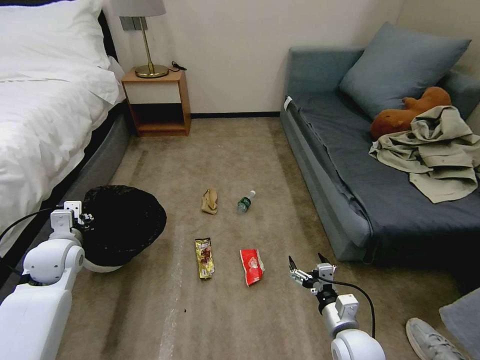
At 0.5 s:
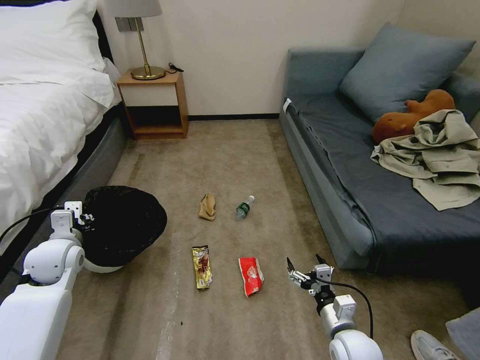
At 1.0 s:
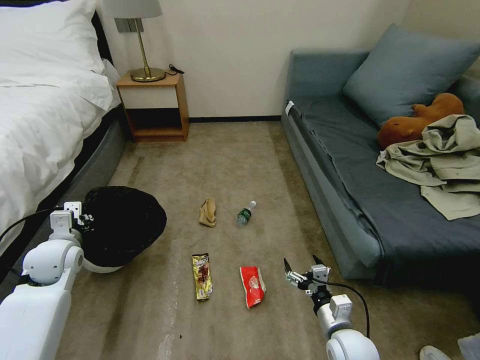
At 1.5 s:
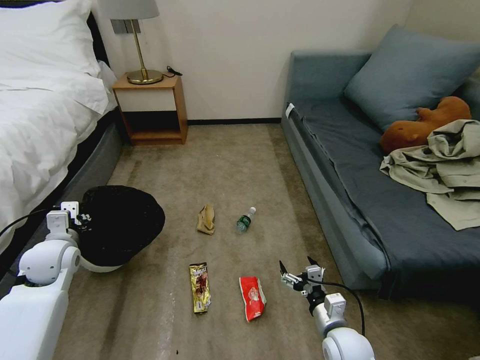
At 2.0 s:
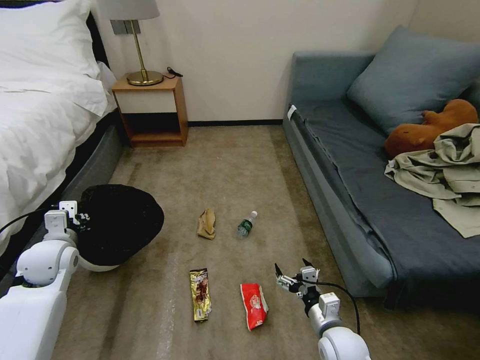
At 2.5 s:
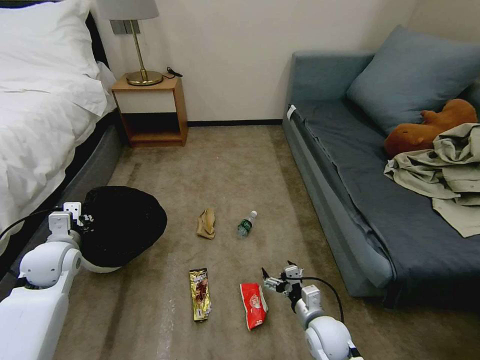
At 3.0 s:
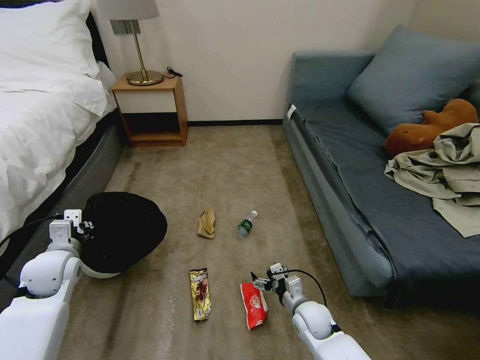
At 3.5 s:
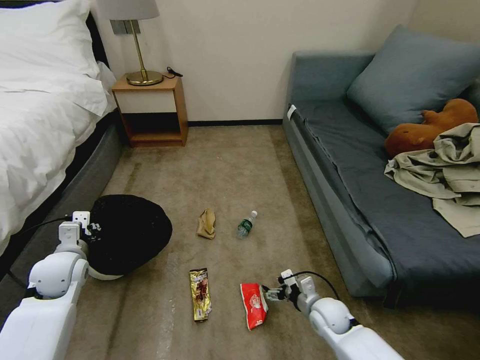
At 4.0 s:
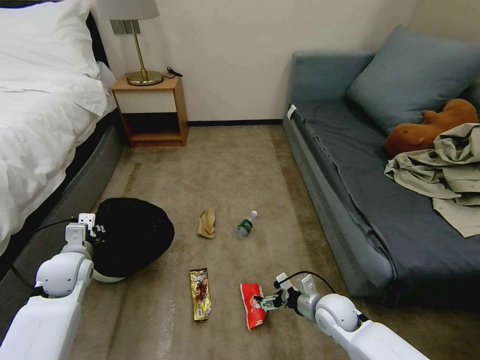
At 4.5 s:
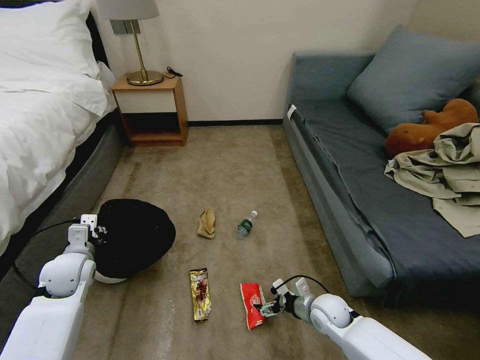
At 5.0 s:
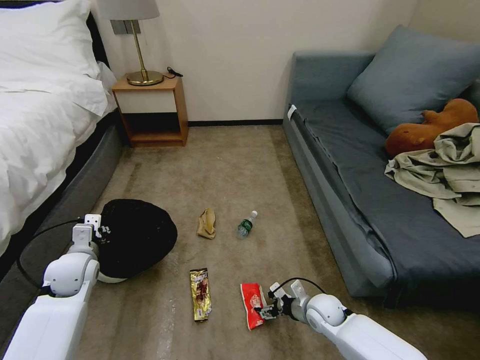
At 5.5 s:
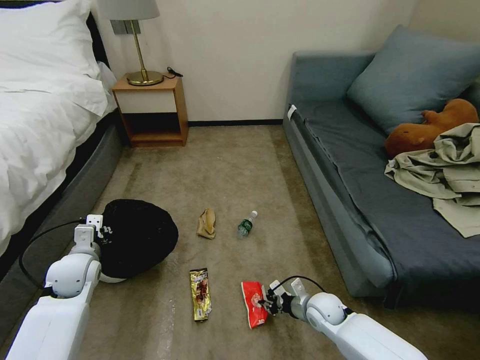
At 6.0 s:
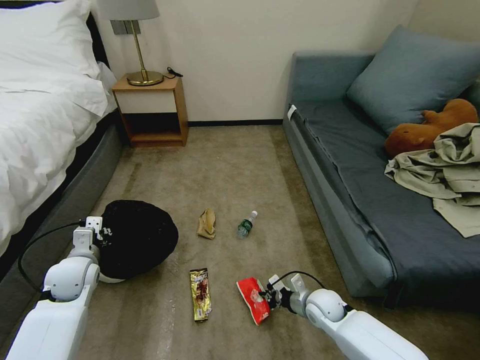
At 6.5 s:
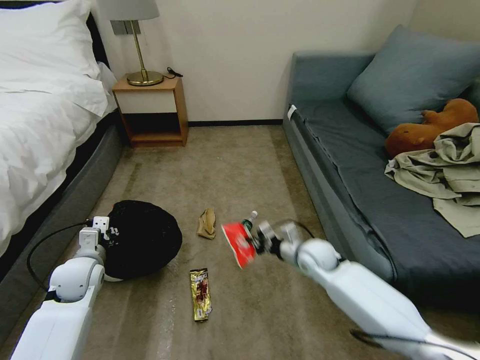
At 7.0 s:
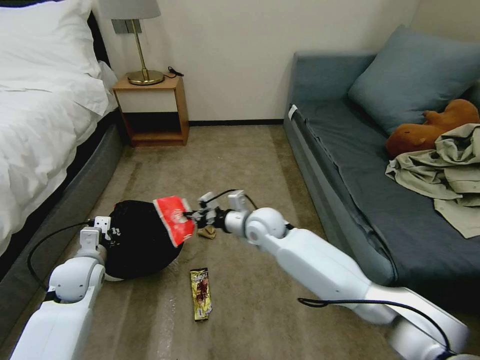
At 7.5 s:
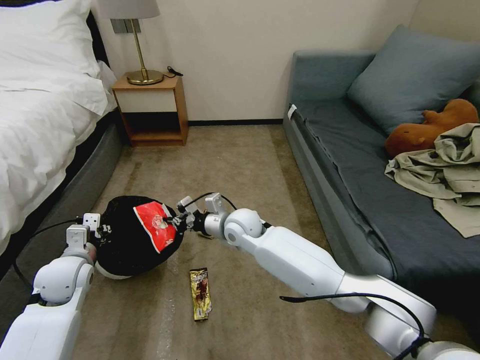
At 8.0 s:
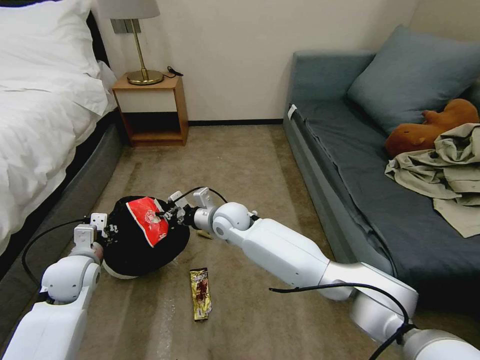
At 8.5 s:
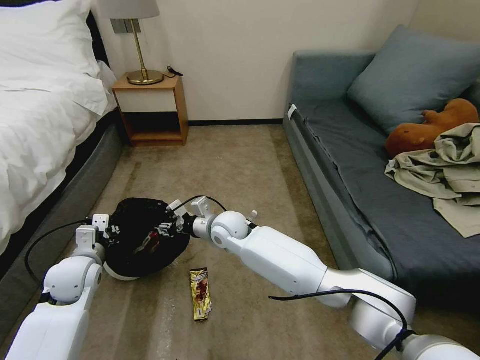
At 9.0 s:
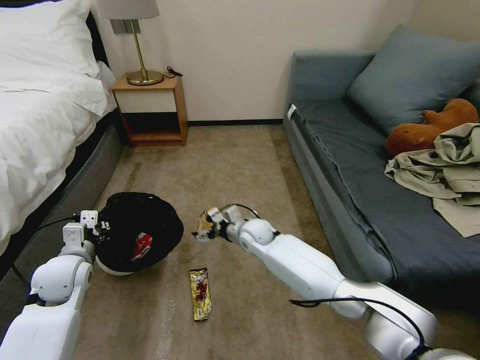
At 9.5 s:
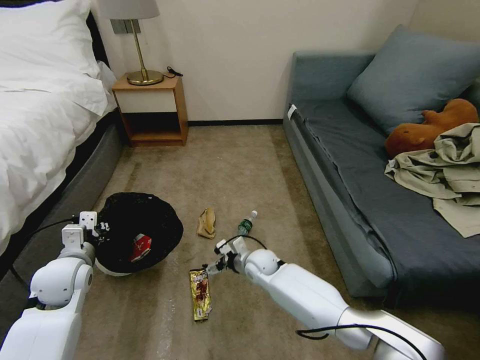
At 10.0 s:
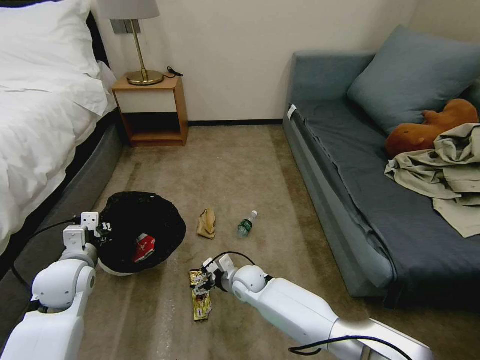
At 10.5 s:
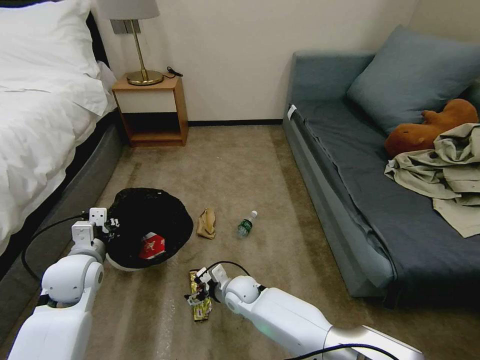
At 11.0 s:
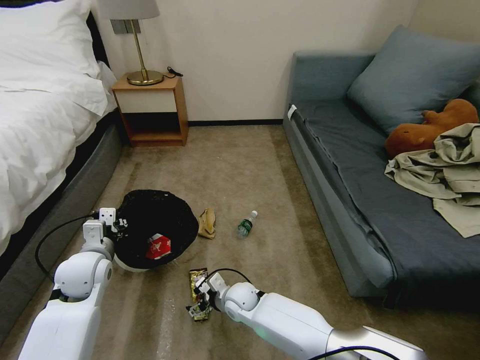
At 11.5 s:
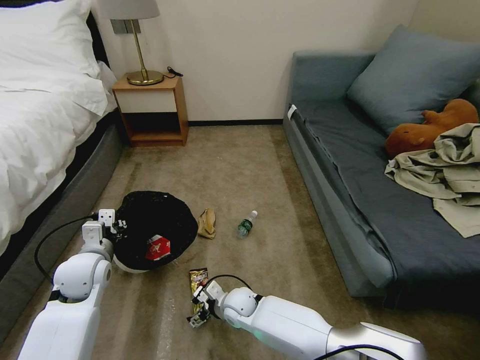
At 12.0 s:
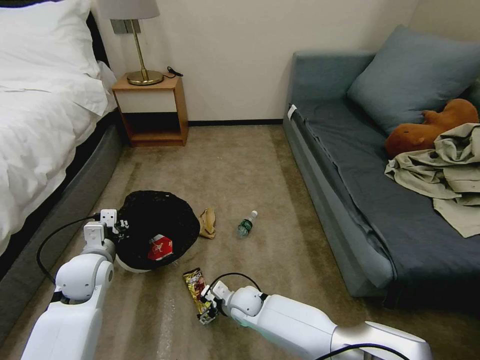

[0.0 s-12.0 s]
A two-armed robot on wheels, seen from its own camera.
Task of the whole recording: Pick up the trash bin, then pick up the garbage on the floor and place it into the trash bin.
2.0 to 4.0 s: The right gripper heads forward, covering some 10 cm.
4.0 to 6.0 s: The right gripper closes.
6.0 to 8.0 s: The right gripper heads to the left, upward and forward, covering approximately 35 cm.
8.0 to 10.0 s: The right gripper heads downward and backward, covering approximately 20 cm, and opens.
10.0 to 12.0 s: The right gripper moves some 5 cm.

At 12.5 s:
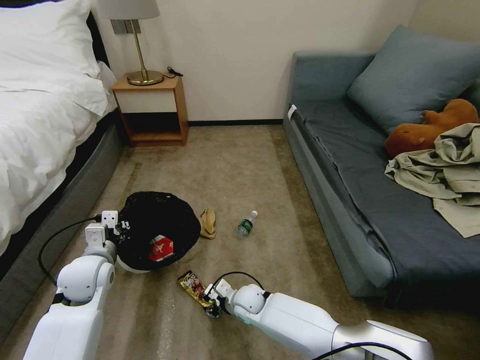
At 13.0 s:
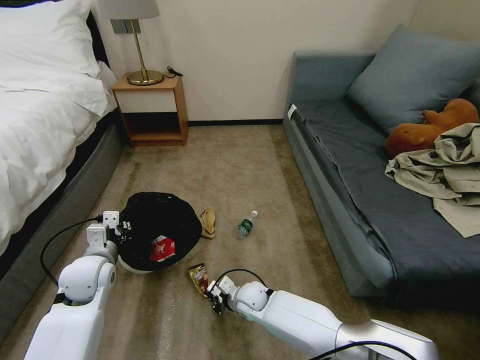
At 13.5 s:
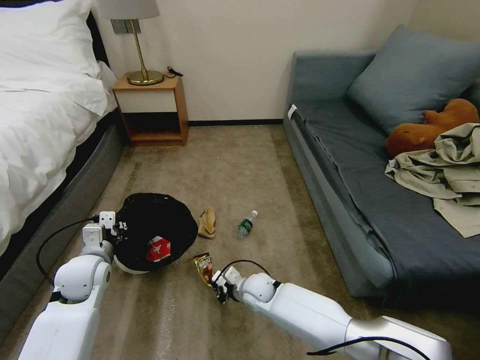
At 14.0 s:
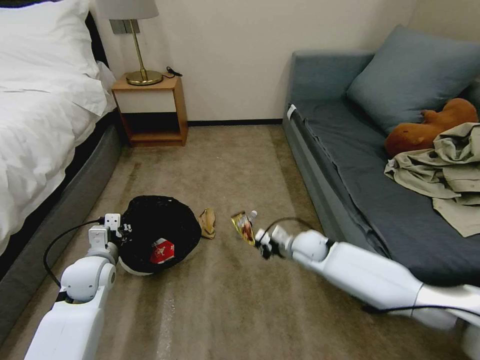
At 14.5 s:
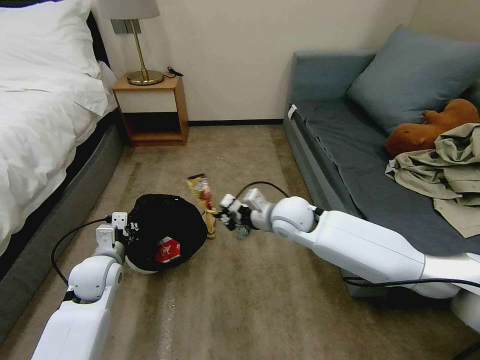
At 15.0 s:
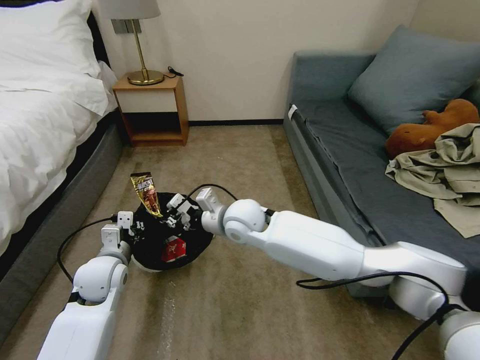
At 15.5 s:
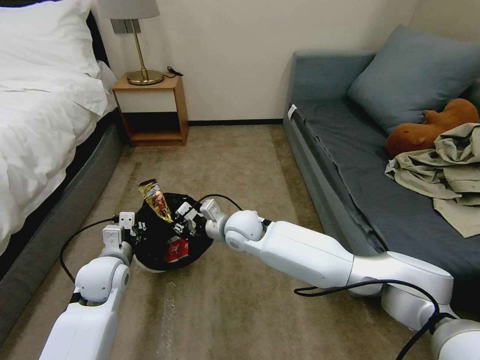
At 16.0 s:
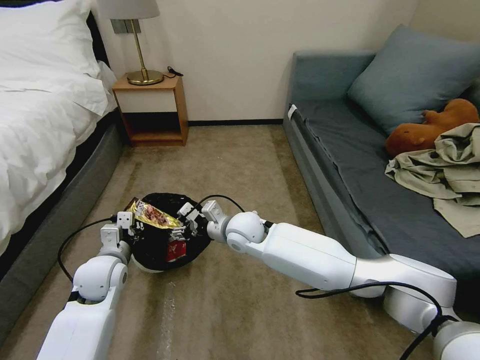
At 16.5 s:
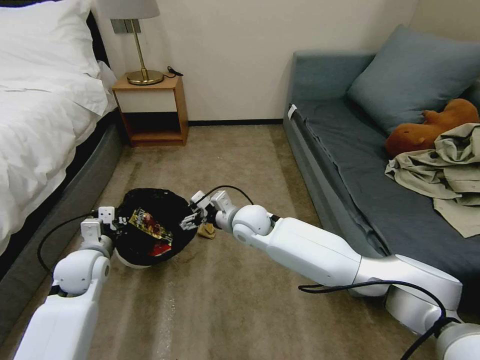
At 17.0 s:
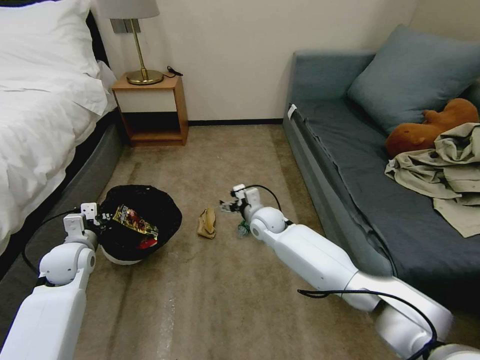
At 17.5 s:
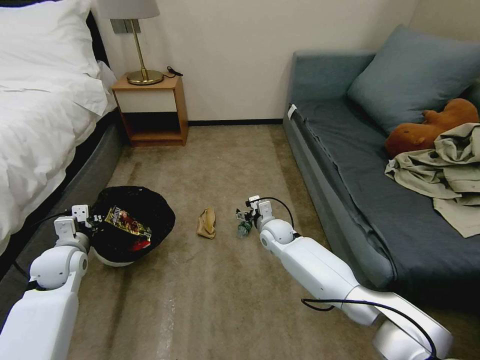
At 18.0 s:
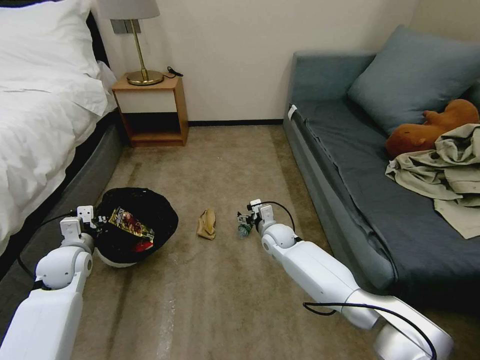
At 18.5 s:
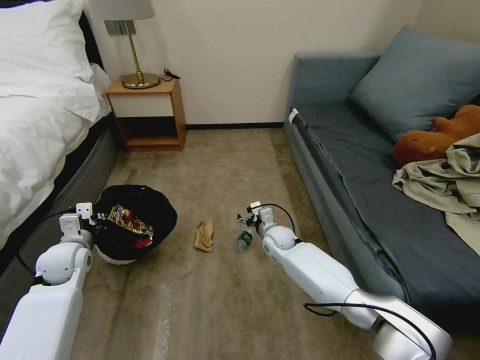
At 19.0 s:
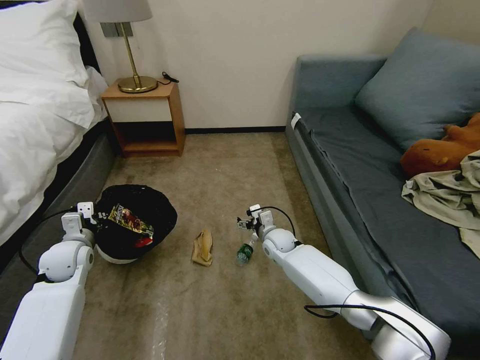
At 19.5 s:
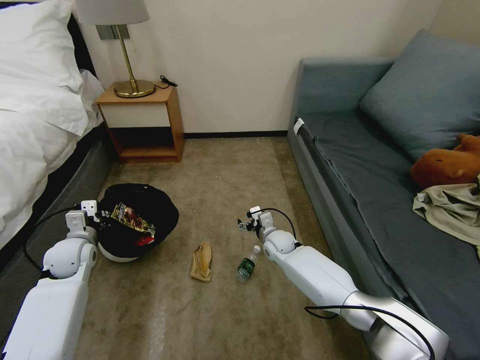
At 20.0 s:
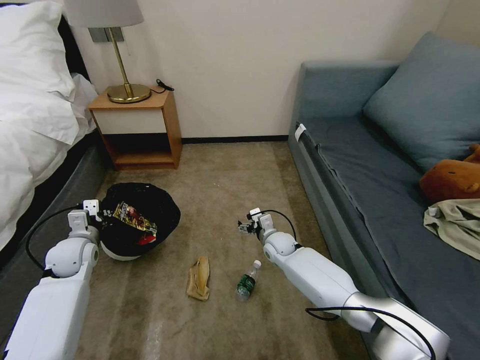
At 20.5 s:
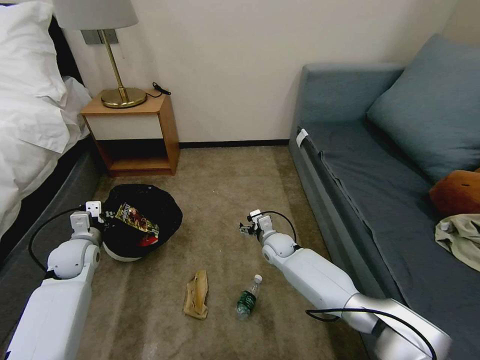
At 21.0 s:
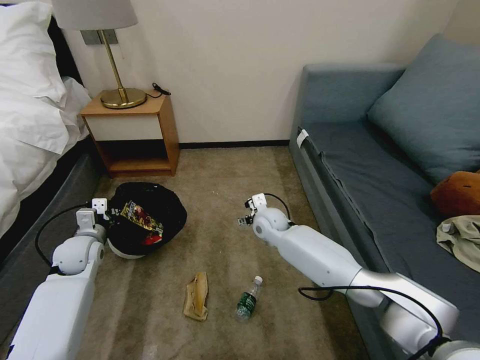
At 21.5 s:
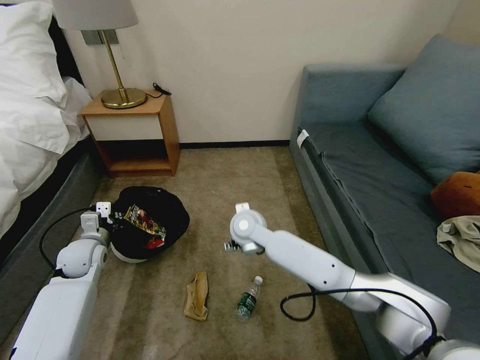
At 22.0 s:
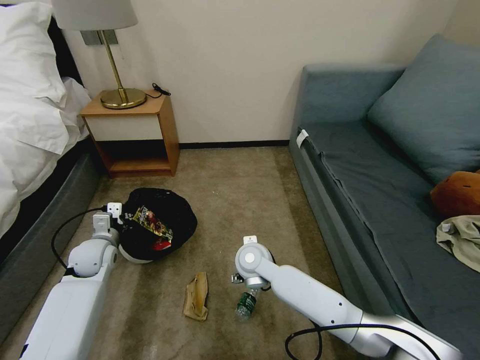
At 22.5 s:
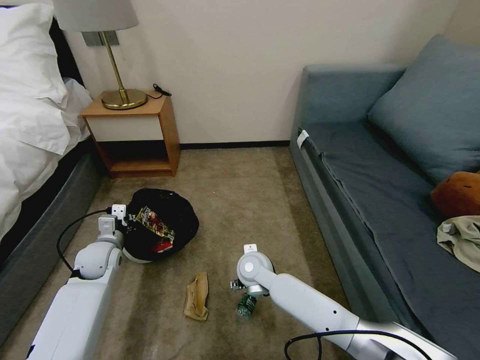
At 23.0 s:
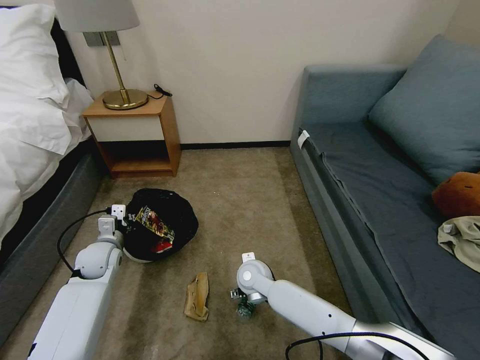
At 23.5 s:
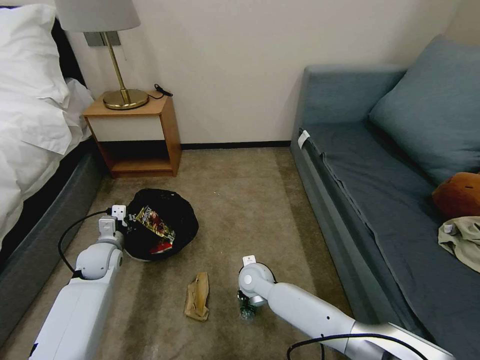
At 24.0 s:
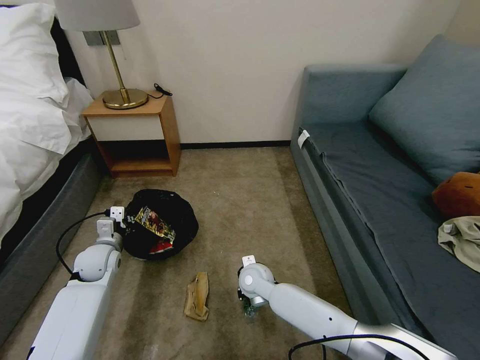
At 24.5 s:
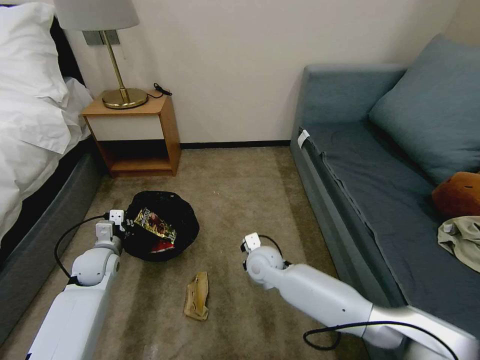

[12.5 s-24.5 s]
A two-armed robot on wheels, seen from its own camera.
Task of the whole recording: Pick up the trash bin, then pick up the garbage on the floor and place it into the trash bin.
12.5 to 14.5 s: The right gripper is displaced upward, to the right and forward by approximately 30 cm, and closes up.
14.5 to 16.5 s: The right gripper shifts roughly 10 cm to the left, and opens up.
16.5 to 18.5 s: The right gripper moves downward and to the right, about 15 cm, while the left gripper is displaced to the left by some 5 cm.
20.5 to 22.5 s: The right gripper is displaced backward, to the left and upward by some 15 cm; the left gripper moves approximately 5 cm.
22.5 to 24.5 s: The right gripper closes its fingers.

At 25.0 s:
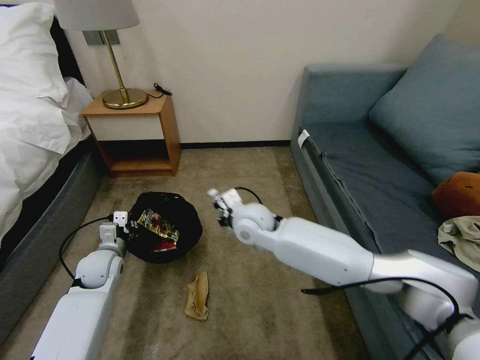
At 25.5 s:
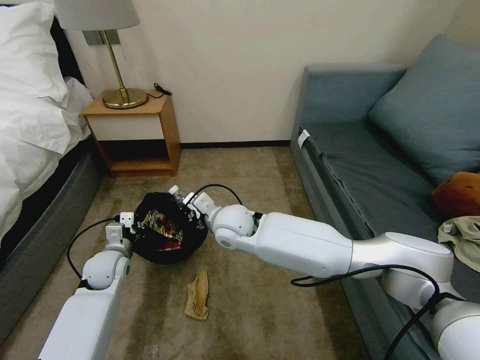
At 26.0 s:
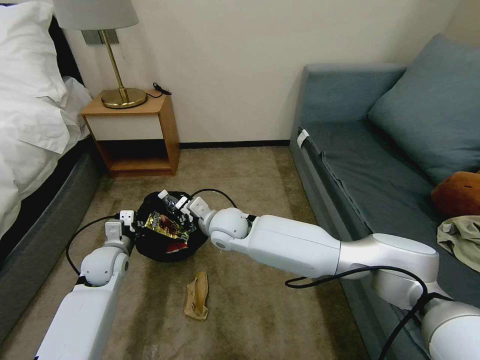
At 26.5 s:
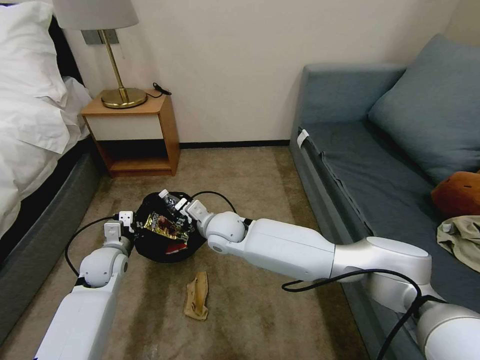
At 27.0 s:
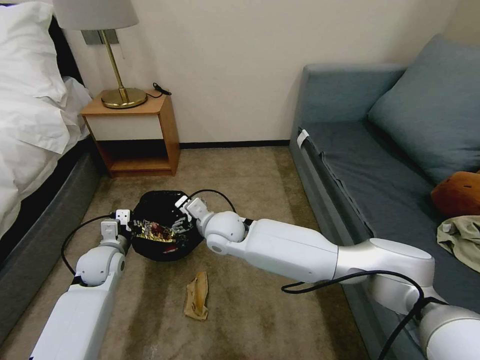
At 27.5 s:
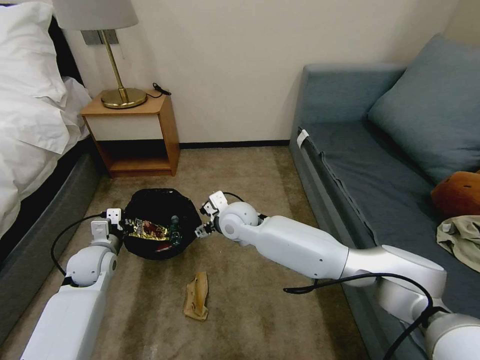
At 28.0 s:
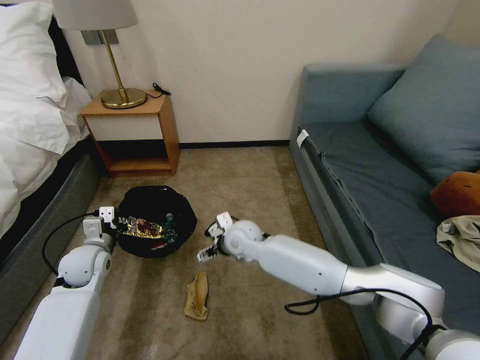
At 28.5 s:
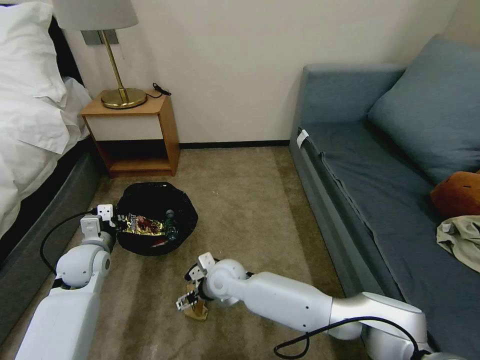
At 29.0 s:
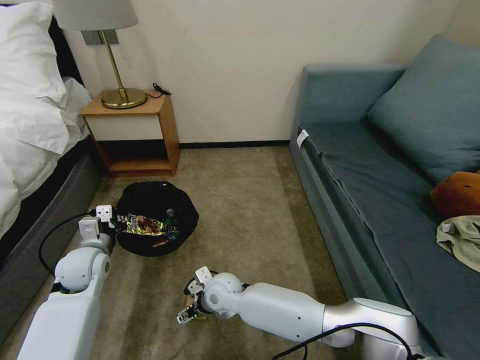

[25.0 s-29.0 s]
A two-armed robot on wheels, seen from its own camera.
Task of the whole recording: Pick up the trash bin, then pick up the garbage on the floor and place it into the trash bin.
25.0 to 27.0 s: The right gripper travels to the left by some 10 cm, and opens.
27.0 to 29.0 s: The right gripper travels downward and backward by approximately 15 cm.
